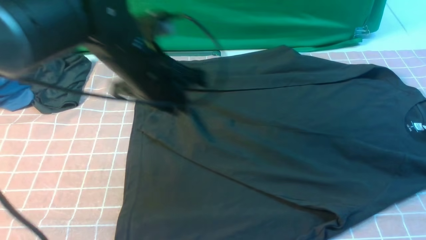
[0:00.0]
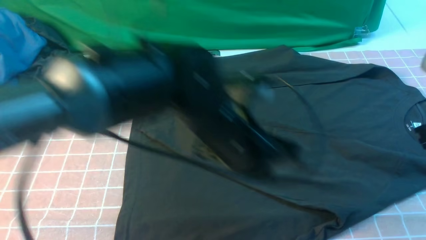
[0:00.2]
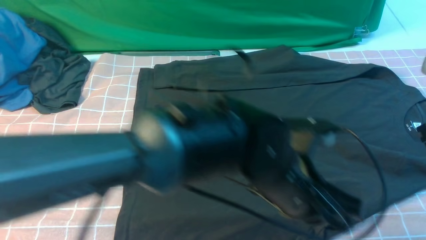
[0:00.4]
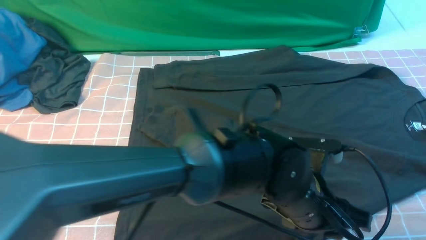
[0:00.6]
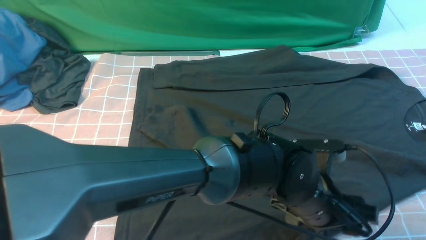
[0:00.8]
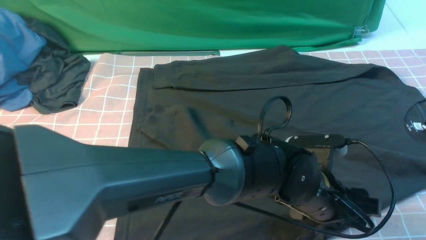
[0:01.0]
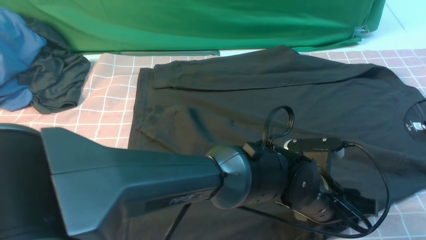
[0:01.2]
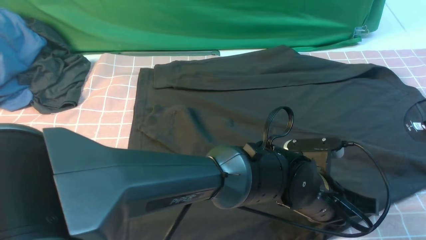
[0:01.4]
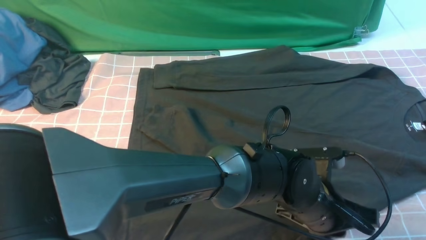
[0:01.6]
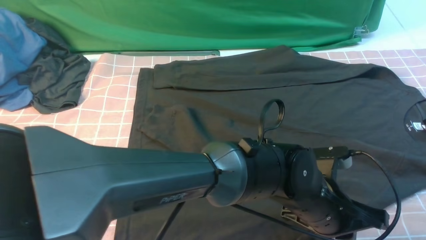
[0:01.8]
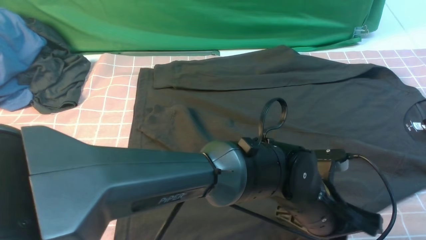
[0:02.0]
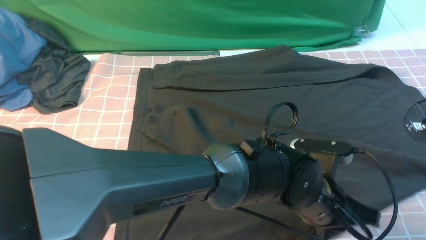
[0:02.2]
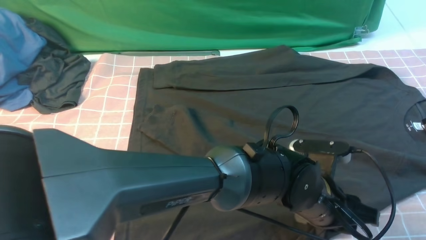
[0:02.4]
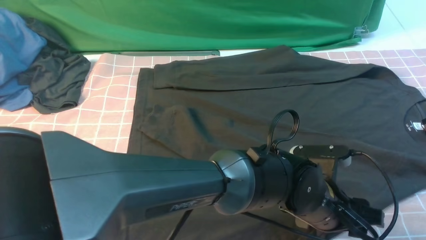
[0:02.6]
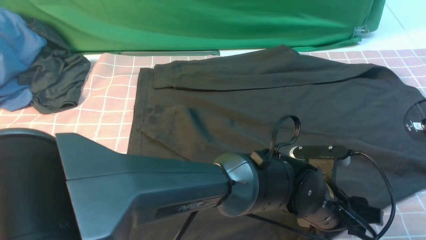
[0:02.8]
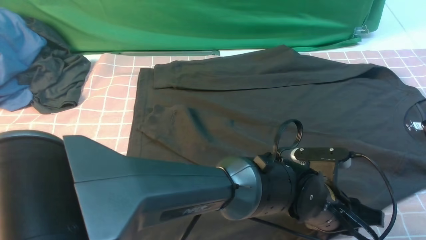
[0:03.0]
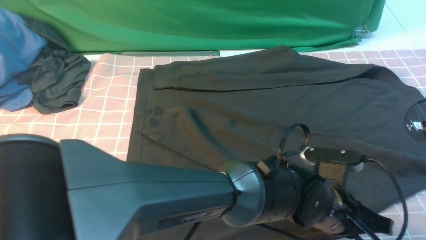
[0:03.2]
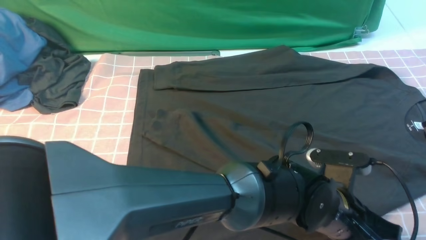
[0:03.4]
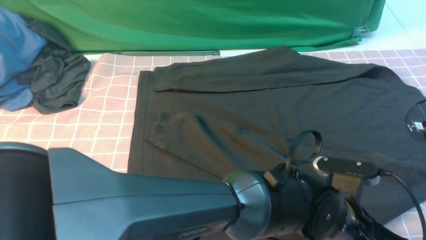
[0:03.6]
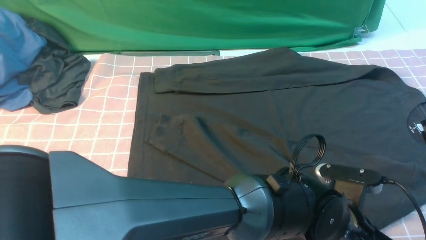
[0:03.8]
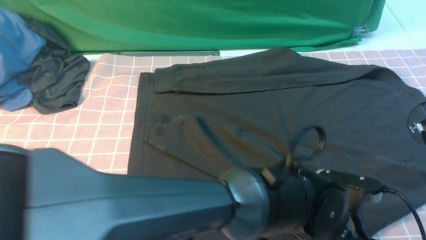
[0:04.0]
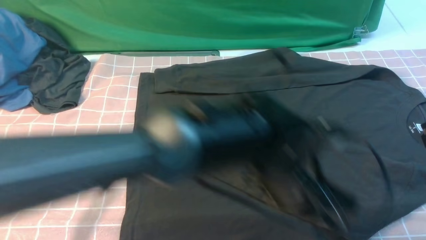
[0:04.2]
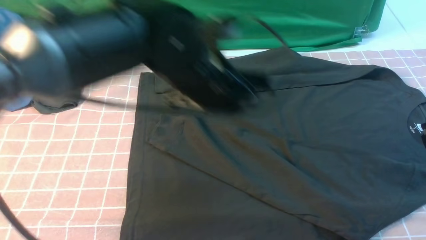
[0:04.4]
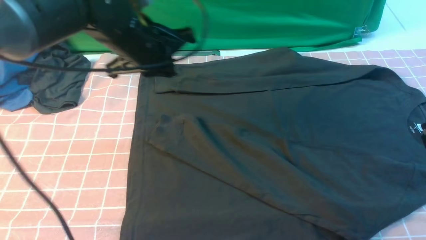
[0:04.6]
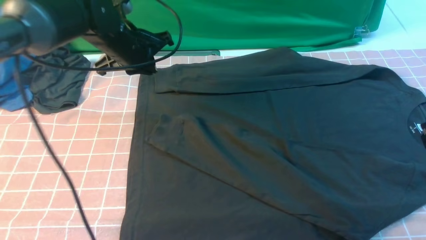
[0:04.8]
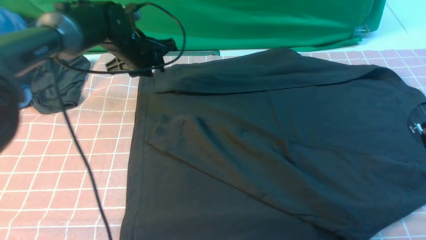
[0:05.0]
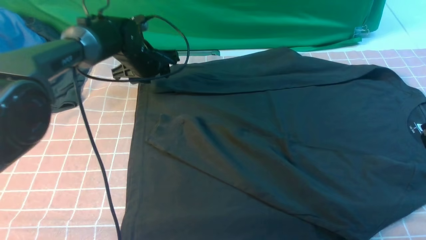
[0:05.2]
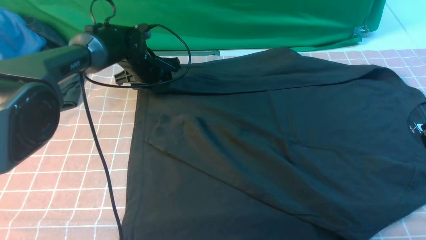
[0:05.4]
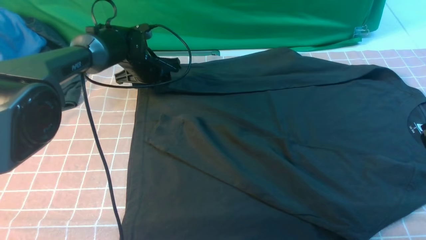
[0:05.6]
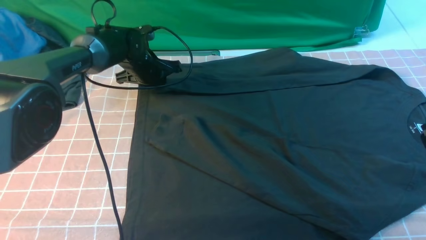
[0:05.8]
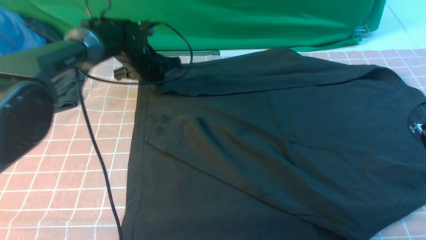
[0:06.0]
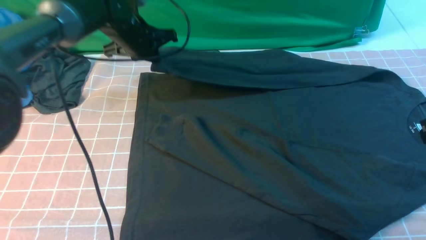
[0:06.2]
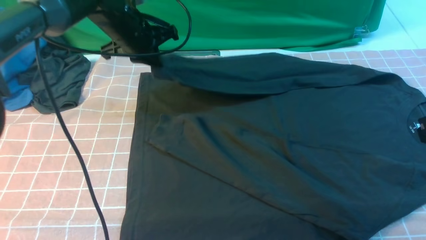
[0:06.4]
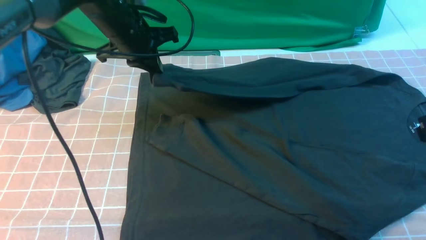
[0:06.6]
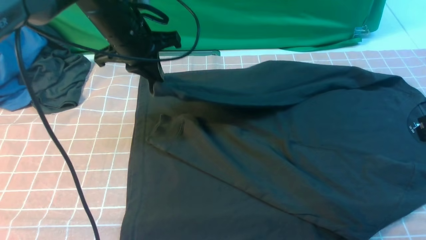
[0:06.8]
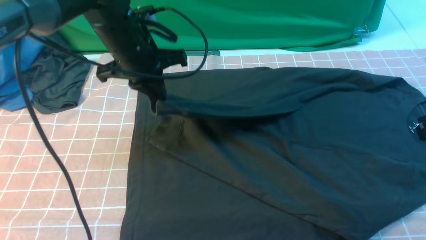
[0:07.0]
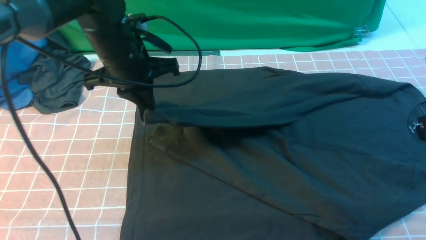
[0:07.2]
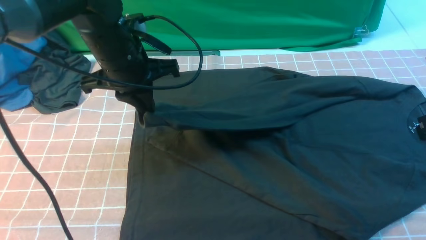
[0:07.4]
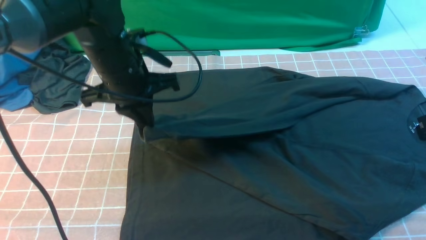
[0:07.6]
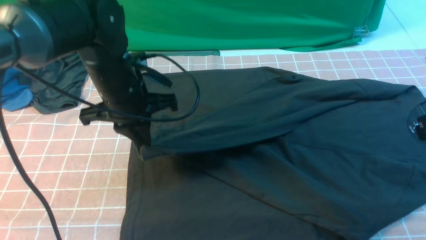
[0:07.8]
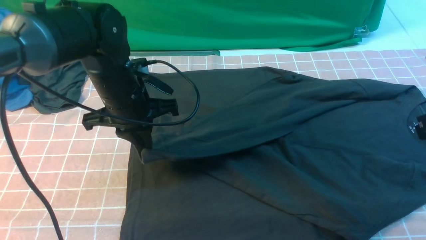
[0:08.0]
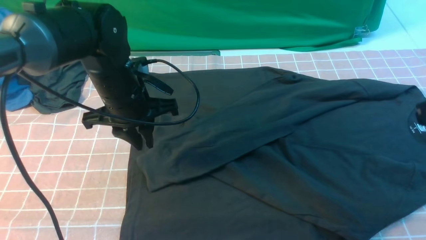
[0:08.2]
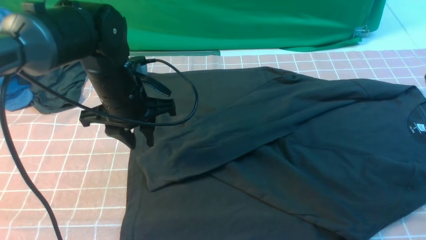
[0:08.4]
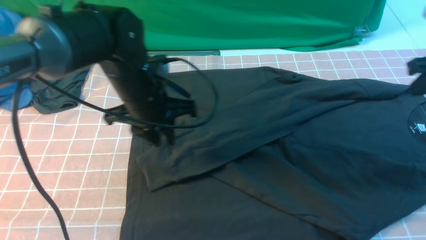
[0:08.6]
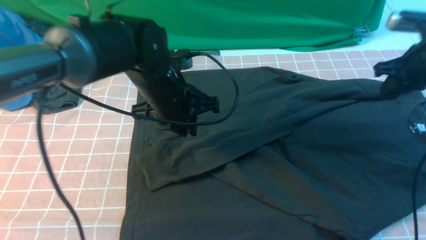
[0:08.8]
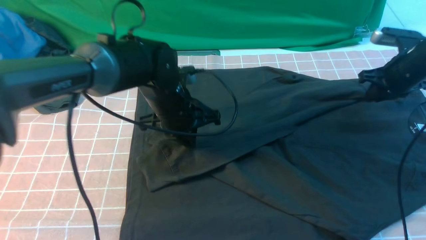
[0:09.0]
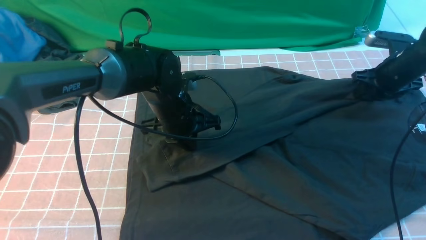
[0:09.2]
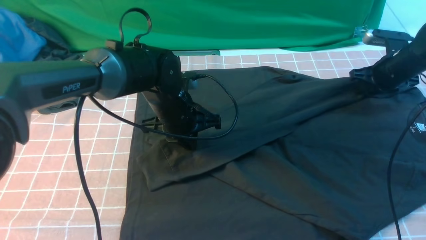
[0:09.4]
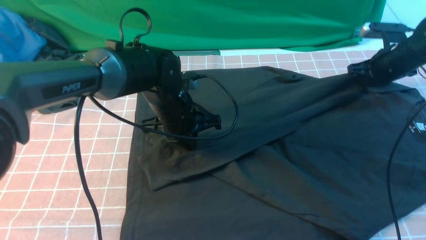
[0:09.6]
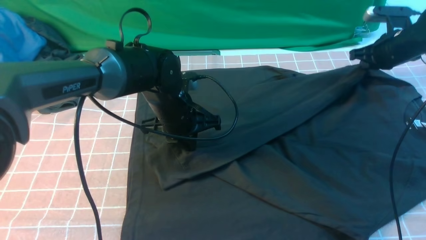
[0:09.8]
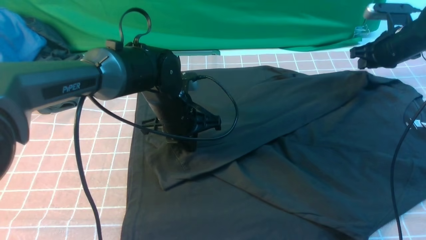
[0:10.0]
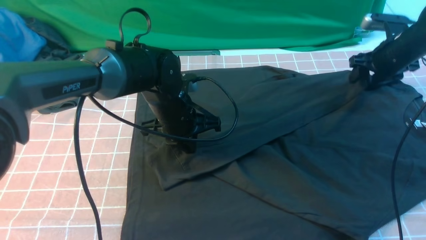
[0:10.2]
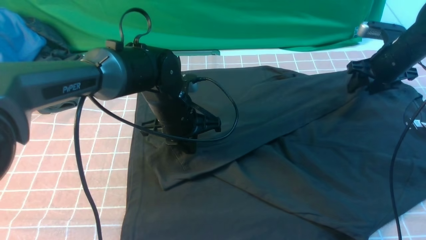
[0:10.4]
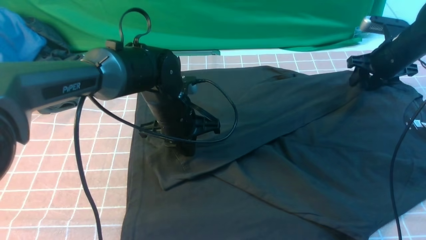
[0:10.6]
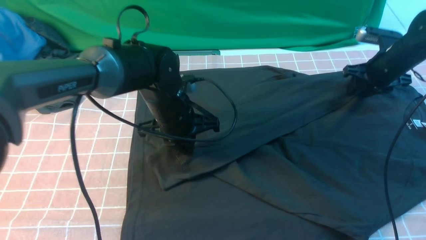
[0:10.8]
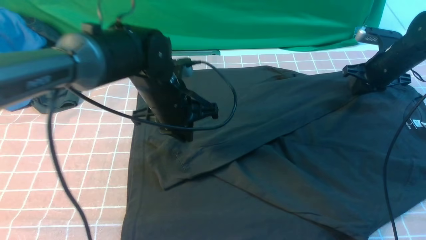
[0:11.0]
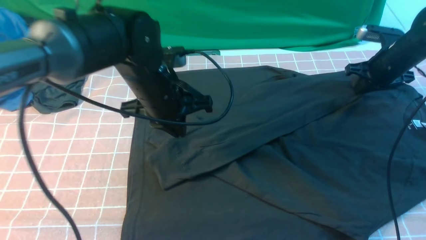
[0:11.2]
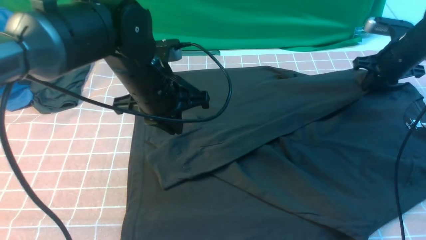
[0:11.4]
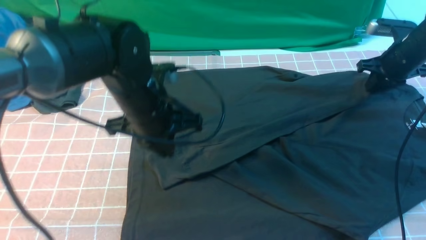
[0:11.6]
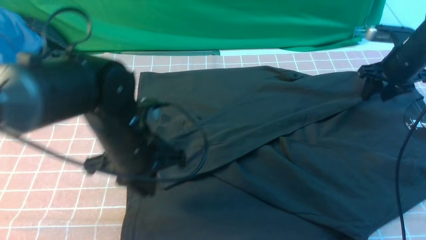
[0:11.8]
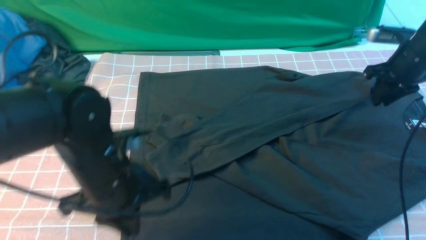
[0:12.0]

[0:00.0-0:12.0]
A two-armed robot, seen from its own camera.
Step, 0:00.0 to 0:03.2: use the left arm to clamp the cuff farthest from it.
Step, 0:03.4 to 0:08.2: use the left arm to drag and drop the cuff onto the cuff closest to the left arm.
0:00.0 to 0:01.6: The left gripper moves to the right, downward and backward, roughly 25 cm, and opens, then closes again. The right gripper changes place by approximately 5 cm.
0:01.6 to 0:03.0: The left gripper opens up.
0:03.0 to 0:04.4: The left gripper travels to the left, upward and forward by roughly 25 cm, and closes.
0:04.4 to 0:06.0: The left gripper moves forward, to the left and downward, some 25 cm, and opens, then closes once more.
0:06.0 to 0:07.6: The left gripper travels backward and upward by about 15 cm.
0:07.6 to 0:09.0: The right gripper goes approximately 25 cm forward and downward, and opens its fingers. The left gripper travels downward and to the right by some 10 cm.
0:09.0 to 0:10.4: The right gripper opens up.
0:10.4 to 0:12.0: The right gripper goes about 5 cm upward, and closes up, while the left gripper moves backward and to the left, approximately 15 cm.

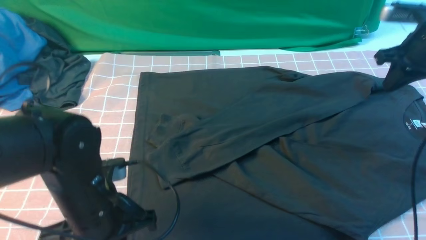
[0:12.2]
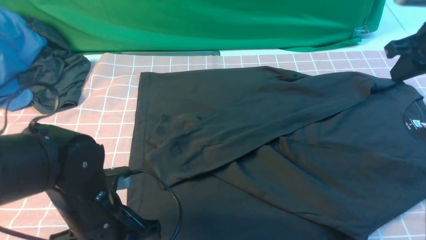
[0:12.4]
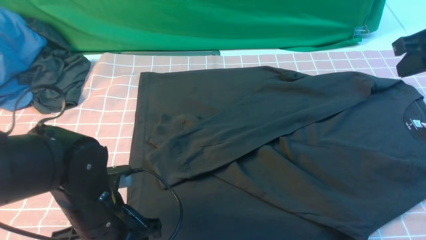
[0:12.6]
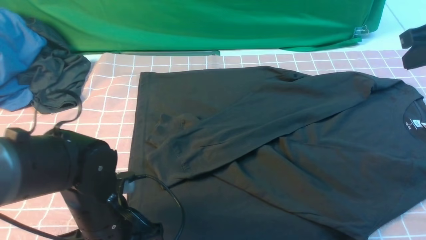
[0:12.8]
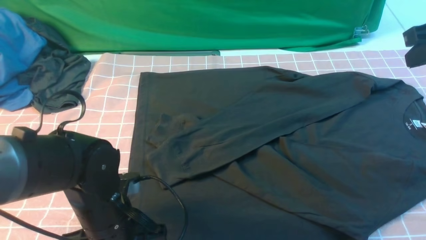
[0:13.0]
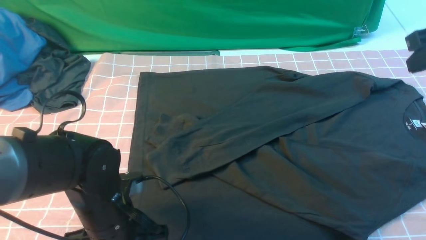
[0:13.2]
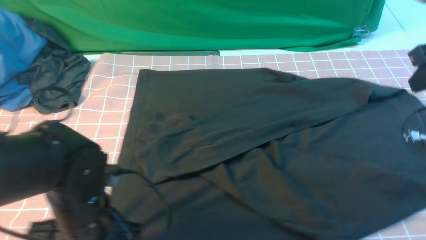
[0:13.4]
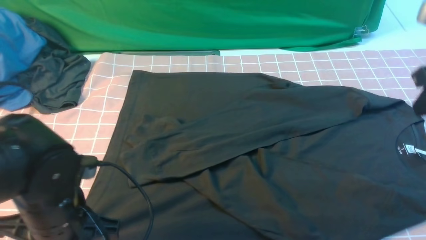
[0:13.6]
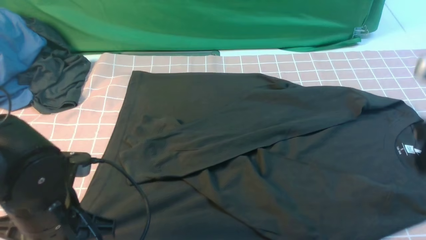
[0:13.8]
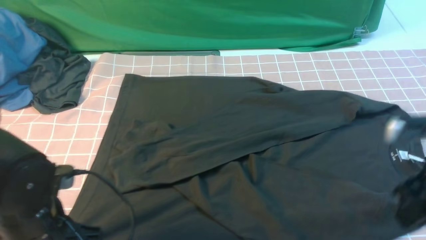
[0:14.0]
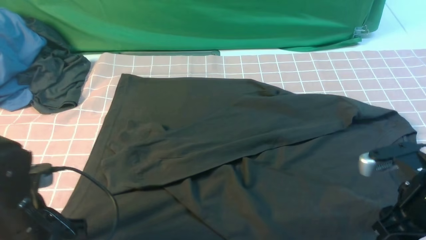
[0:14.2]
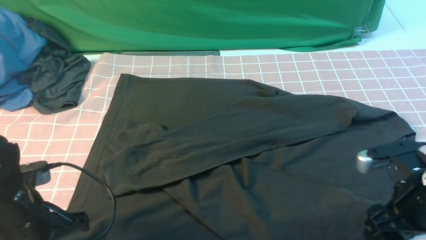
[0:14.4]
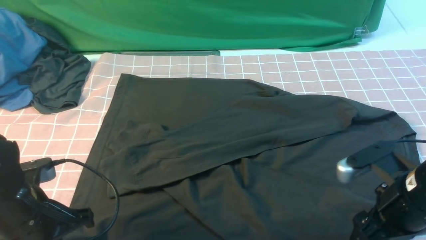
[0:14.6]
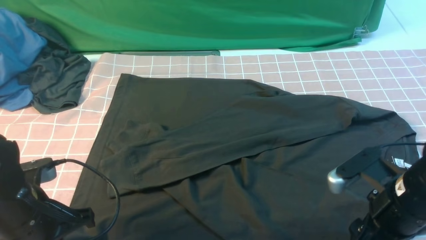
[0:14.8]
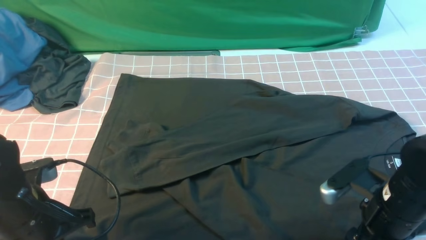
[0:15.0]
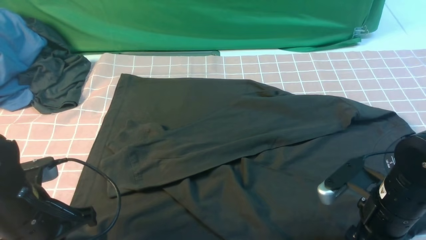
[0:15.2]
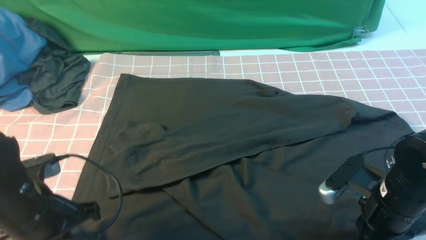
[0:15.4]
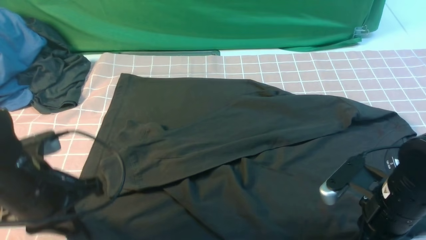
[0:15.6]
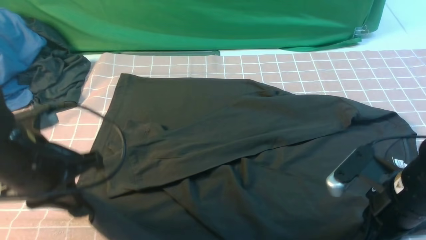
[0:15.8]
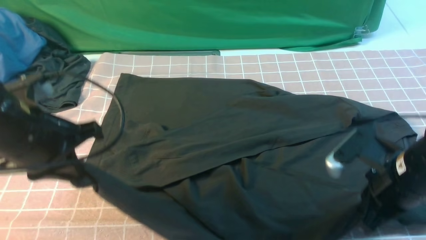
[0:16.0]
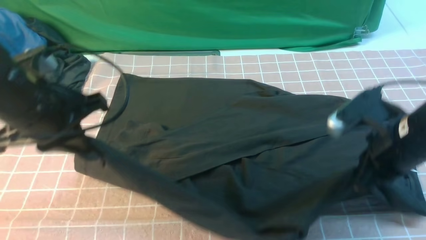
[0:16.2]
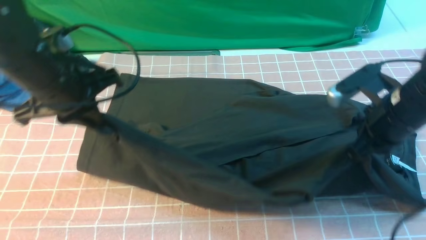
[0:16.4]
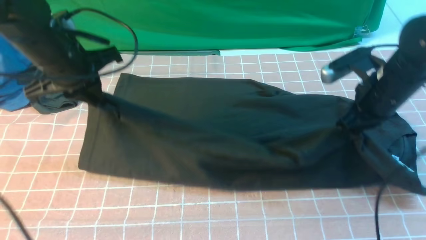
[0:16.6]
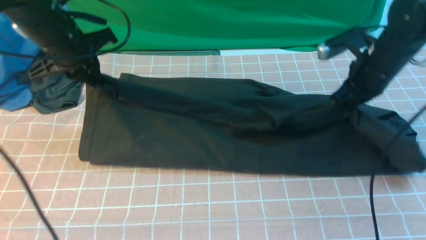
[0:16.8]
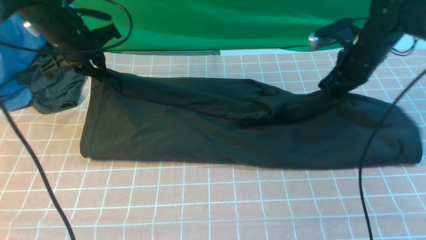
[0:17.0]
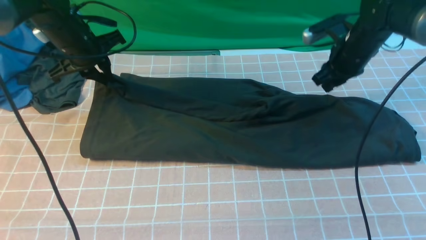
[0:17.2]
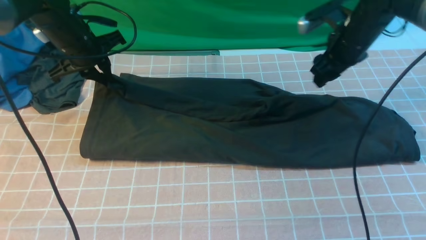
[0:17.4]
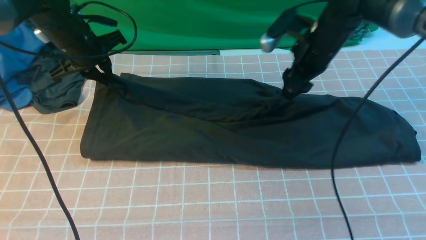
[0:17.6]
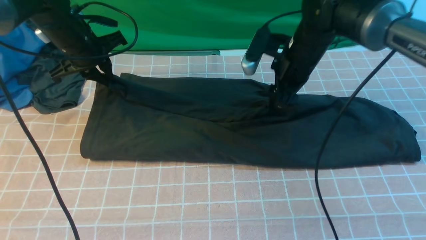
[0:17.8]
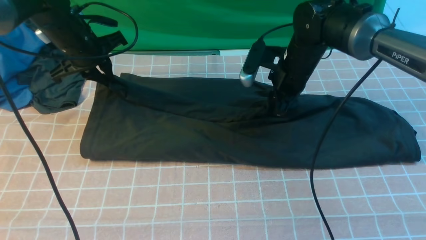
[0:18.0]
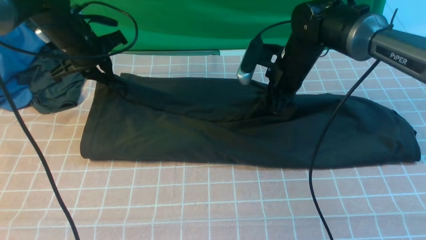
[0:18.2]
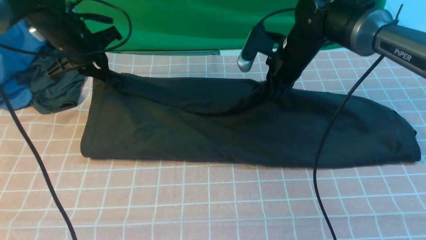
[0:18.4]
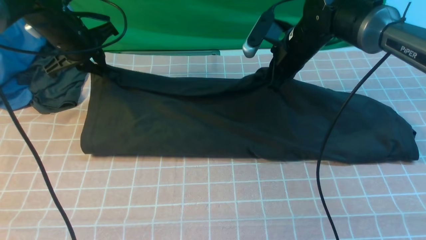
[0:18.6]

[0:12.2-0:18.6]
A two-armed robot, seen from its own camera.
Step, 0:12.2 to 0:15.8: use both arms simultaneously to clamp the lower edge of the clothing fabric.
0:12.2 to 0:13.8: The left gripper changes place by some 5 cm, and closes up. The right gripper travels backward by some 15 cm.
0:13.8 to 0:15.4: The right gripper moves downward and to the left, about 15 cm, and opens, then closes again.
0:15.4 to 0:17.0: Both grippers travel together forward, approximately 25 cm.
0:17.0 to 0:18.6: The right gripper moves to the left, some 10 cm, and opens and closes again.
